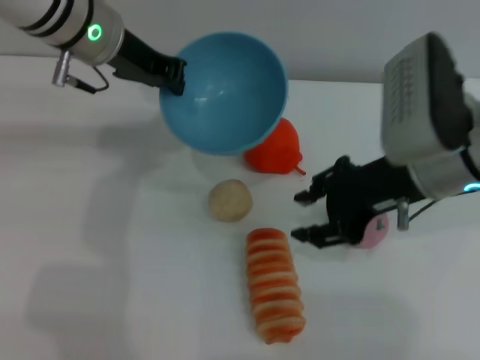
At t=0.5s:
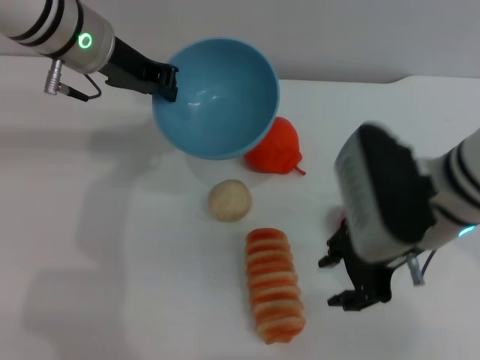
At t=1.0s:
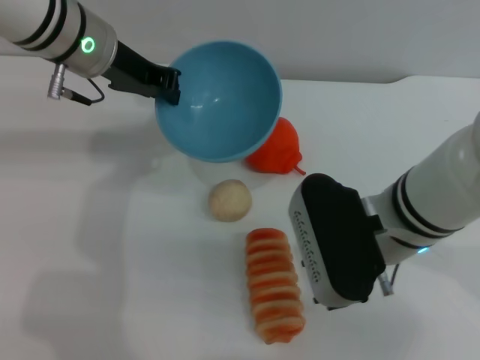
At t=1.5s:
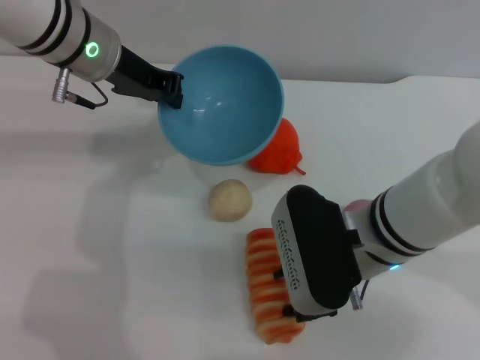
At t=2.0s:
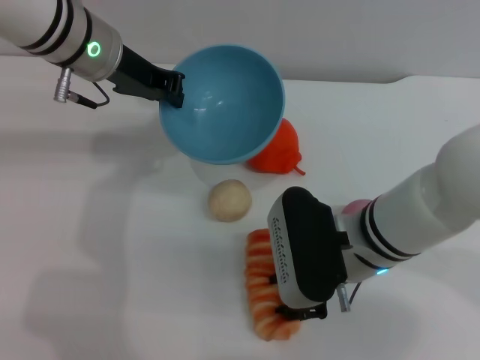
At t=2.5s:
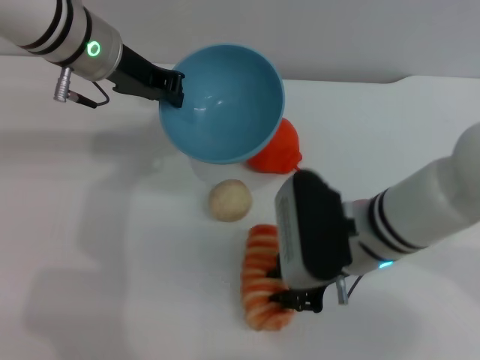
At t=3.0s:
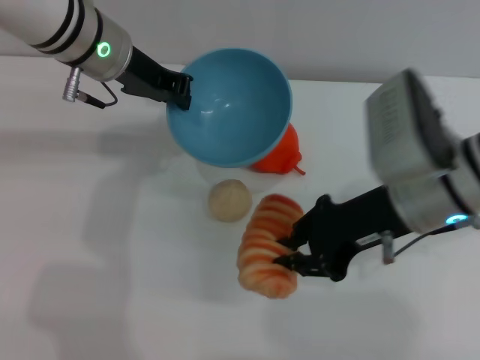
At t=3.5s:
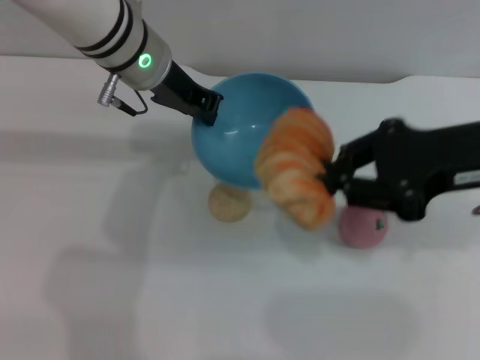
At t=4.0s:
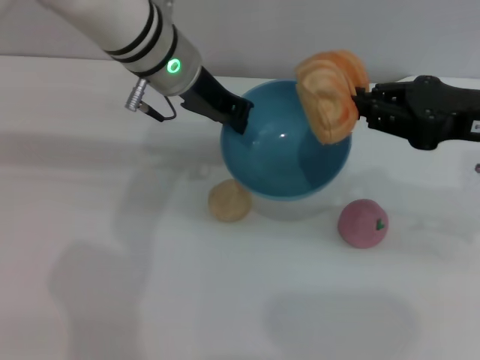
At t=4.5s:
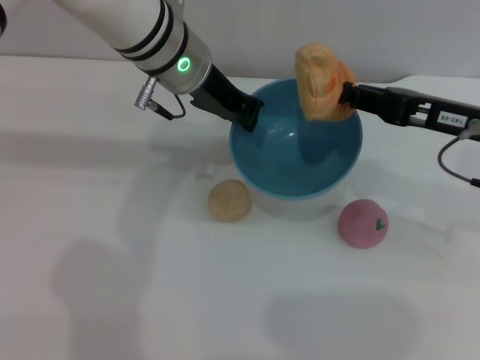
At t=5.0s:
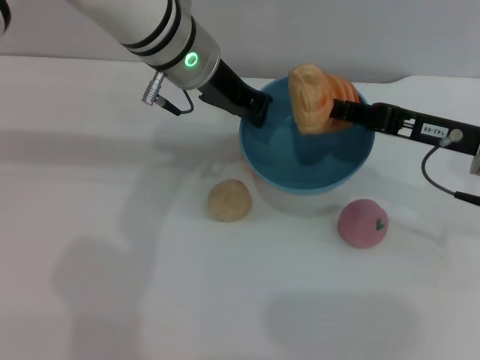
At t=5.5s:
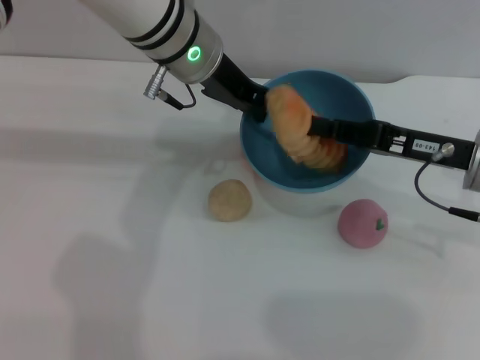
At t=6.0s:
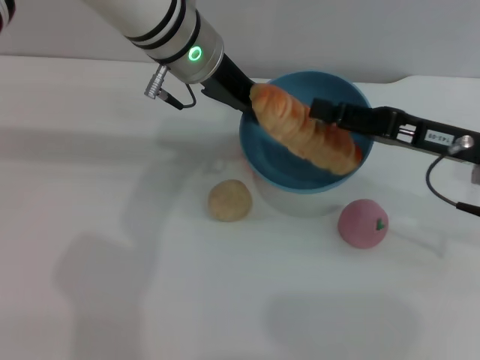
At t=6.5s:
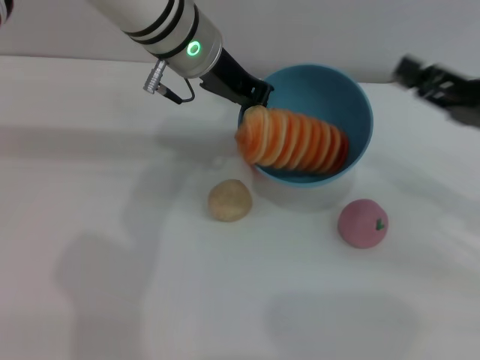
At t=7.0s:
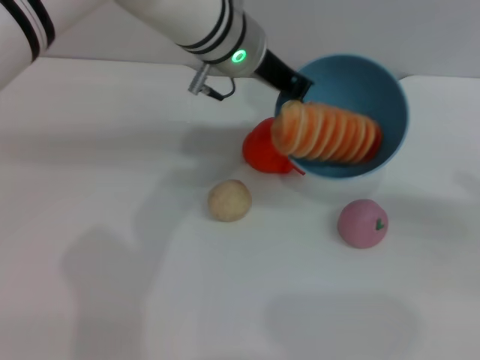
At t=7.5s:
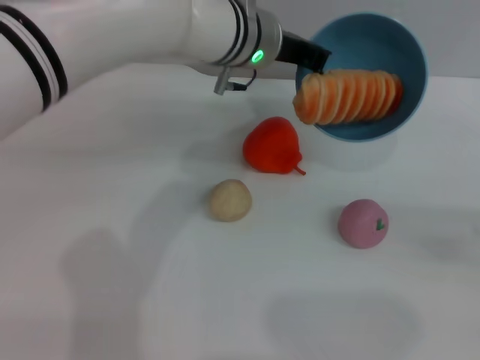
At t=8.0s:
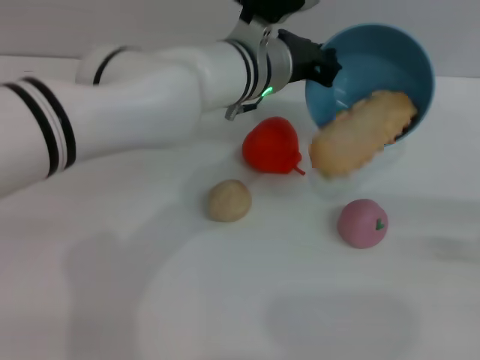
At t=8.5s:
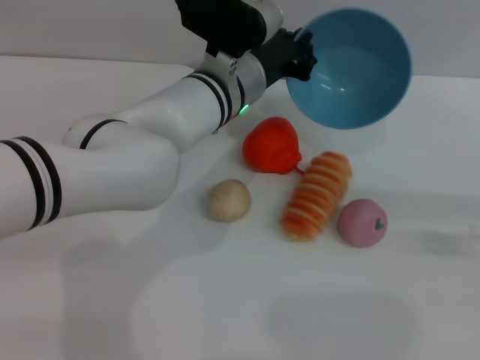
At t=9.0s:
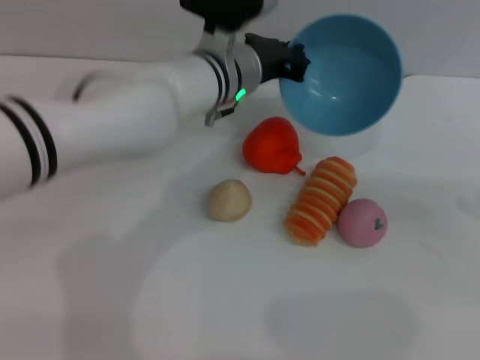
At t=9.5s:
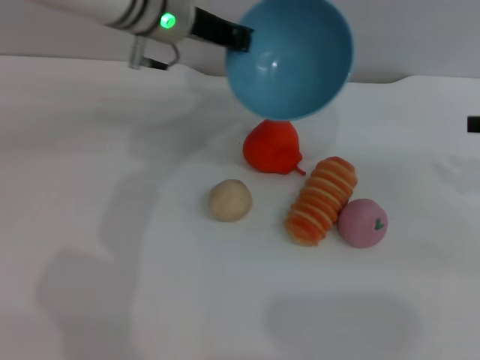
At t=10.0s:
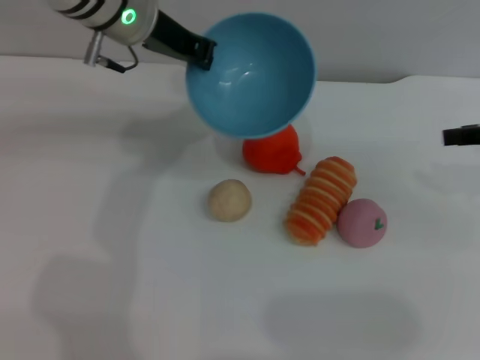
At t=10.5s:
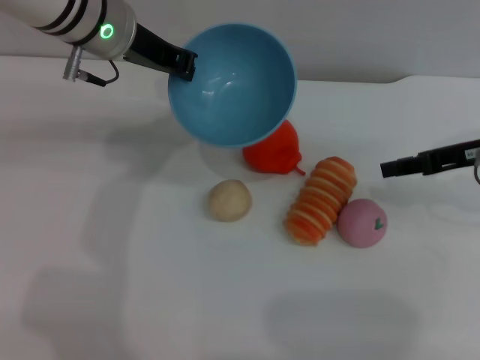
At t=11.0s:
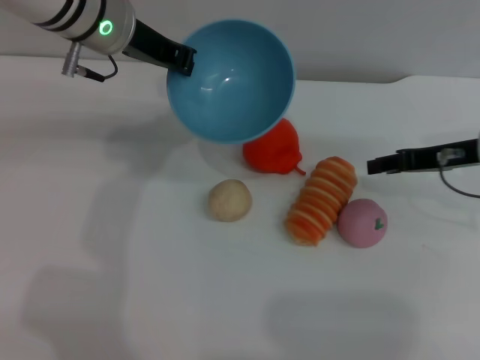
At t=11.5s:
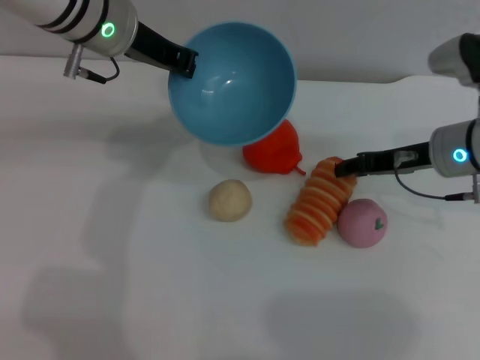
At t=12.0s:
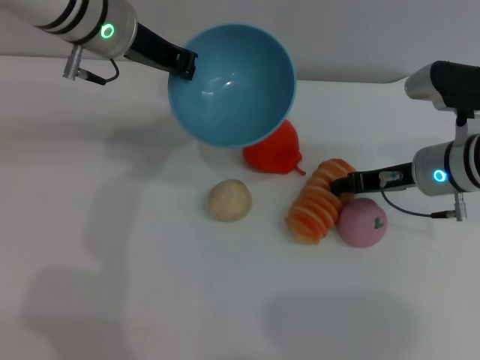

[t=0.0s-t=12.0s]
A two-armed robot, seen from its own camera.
Task of the whole recording: put the bread into the blue bowl and pour it out repeatedly.
Step, t=0.0s to t=3.0s: Pick up the bread with the right gripper.
Step, t=3.5s to t=6.5s: Place the bread into the bowl.
Step, t=7.0s to t=8.5s: Pour the bread out of the bowl.
t=0.0s to t=2.0s: The right gripper moves downward and to the left, some 10 cm.
t=2.0s to t=4.0s: The left gripper is displaced to the right by approximately 5 cm; the right gripper travels to the right and upward by about 20 cm, and closes its fingers.
t=4.0s to t=6.0s: The right gripper shifts about 5 cm downward, and opens up.
t=6.0s to t=8.0s: The left gripper travels downward and to the right by approximately 10 cm; the right gripper heads to the right, covering approximately 15 cm.
t=8.0s to t=10.0s: The left gripper heads to the left and upward, covering about 15 cm; the right gripper heads to the left, upward and forward, covering some 15 cm.
t=10.0s to t=12.0s: The right gripper goes some 15 cm downward and to the left.

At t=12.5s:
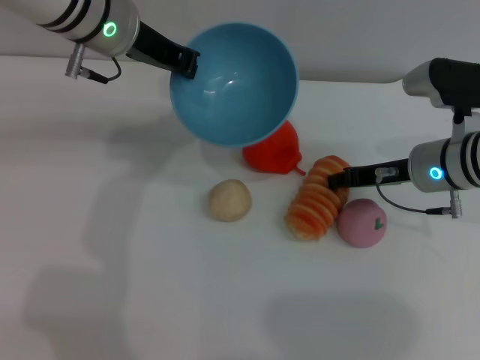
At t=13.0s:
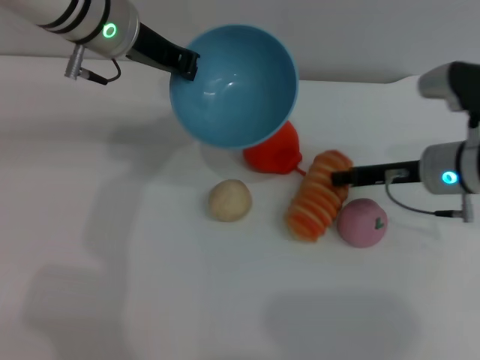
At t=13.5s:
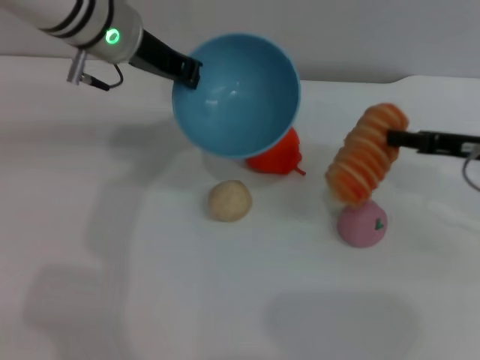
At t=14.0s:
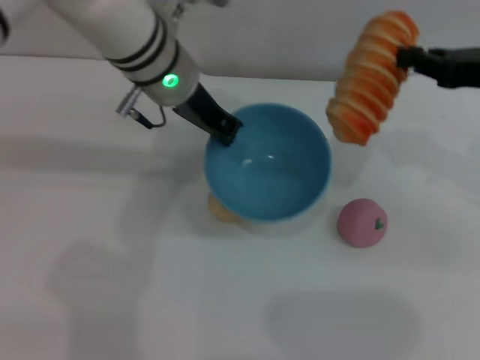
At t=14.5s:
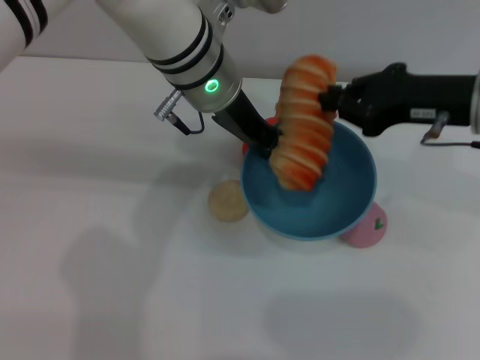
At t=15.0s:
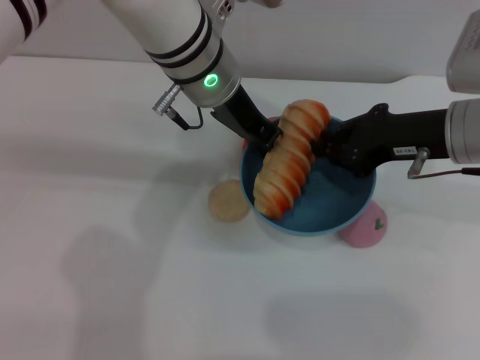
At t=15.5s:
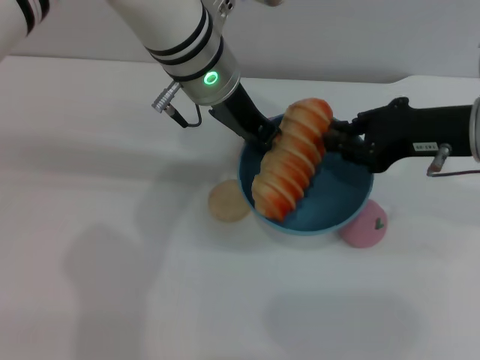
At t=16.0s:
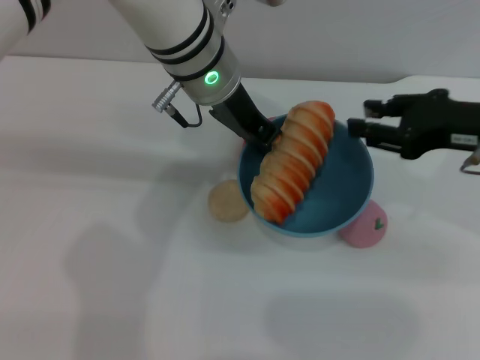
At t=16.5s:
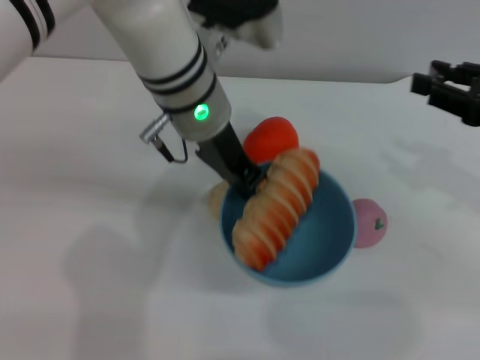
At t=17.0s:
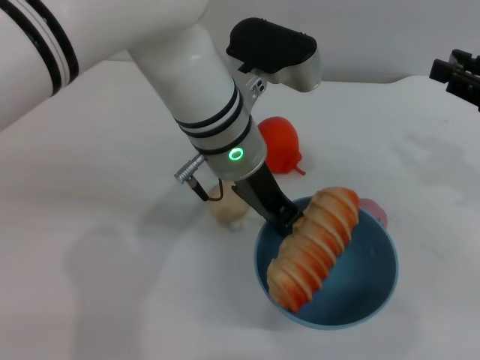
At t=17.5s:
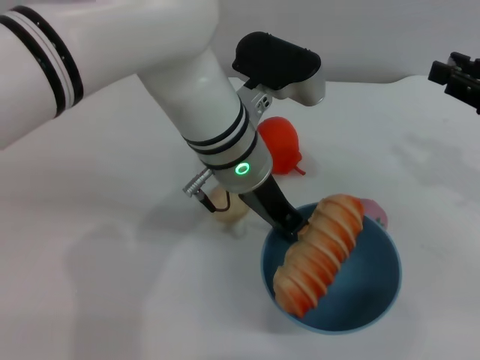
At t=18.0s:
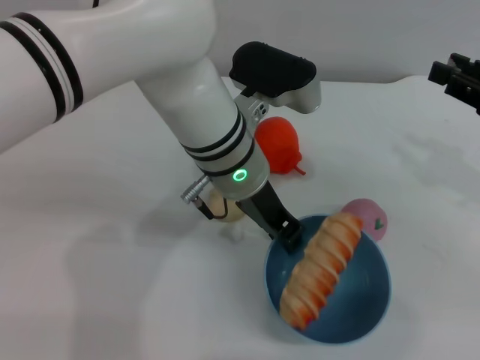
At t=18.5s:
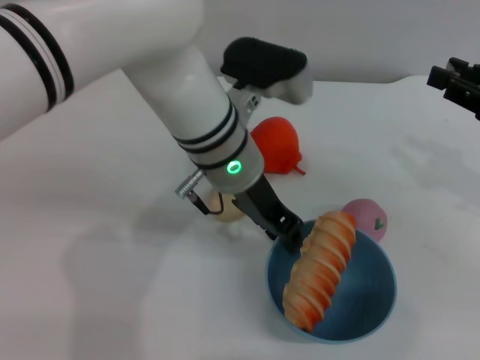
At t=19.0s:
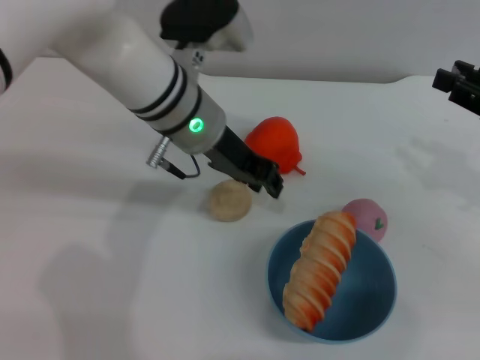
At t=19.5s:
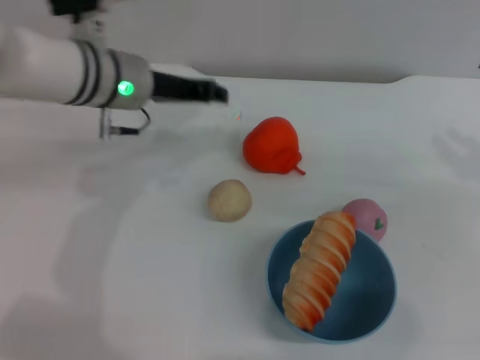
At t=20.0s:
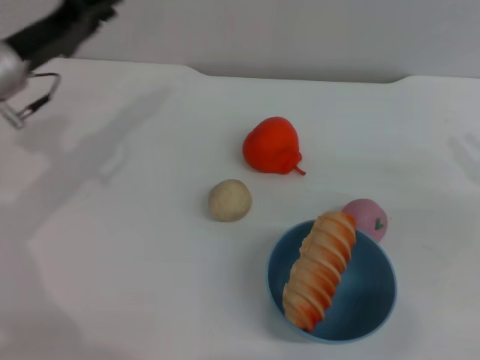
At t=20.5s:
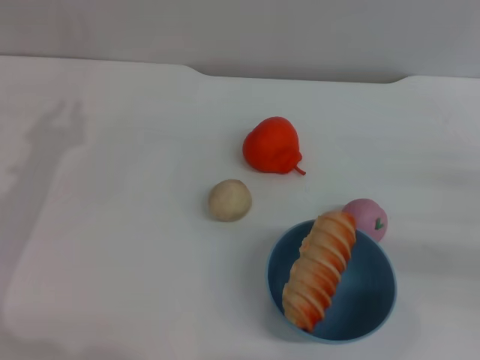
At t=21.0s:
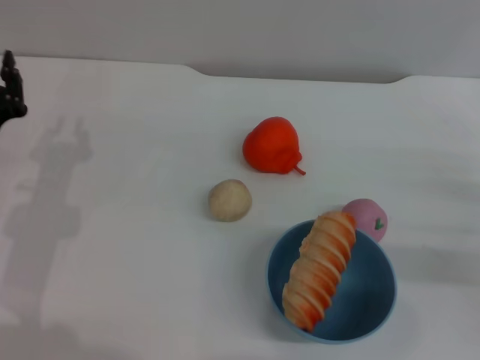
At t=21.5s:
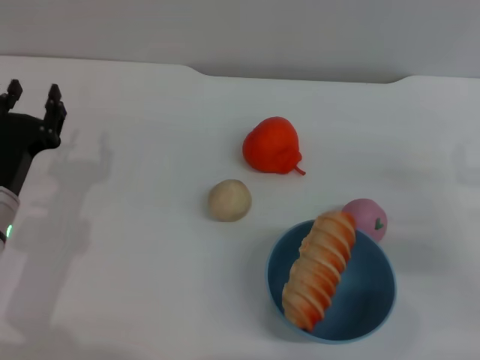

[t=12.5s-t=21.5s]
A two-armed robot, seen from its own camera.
Task of the whole recording: put the bread into the blue bowl and pour it out repeatedly.
Step, t=14.0s to t=16.0s: Place the bread into the bowl.
Step, t=16.5s to t=18.5s: Place the bowl on the table.
t=12.5s to t=14.5s: The left gripper travels to the right by about 10 cm. Meanwhile the right gripper shifts roughly 10 cm upward, and closes.
t=14.5s to t=17.0s: The left gripper shifts by about 5 cm; the right gripper heads to the right, covering approximately 10 cm, and opens.
t=17.0s to t=19.5s: The left gripper shifts about 10 cm to the left.
t=19.5s to t=21.5s: The left gripper shifts roughly 20 cm backward, downward and to the left; the right gripper goes some 10 cm downward.

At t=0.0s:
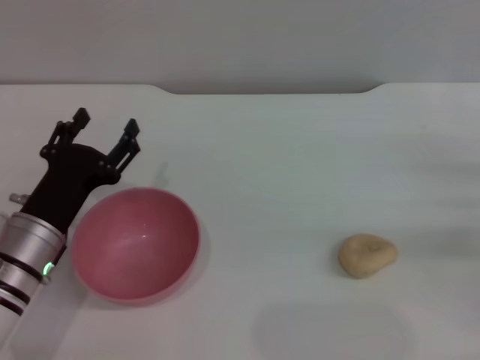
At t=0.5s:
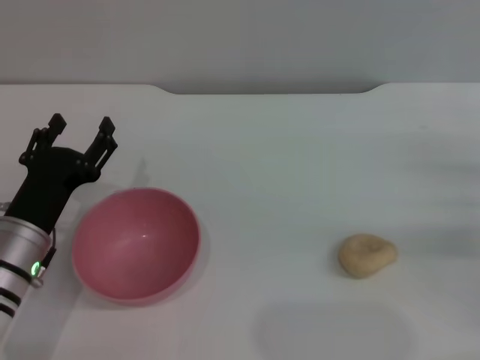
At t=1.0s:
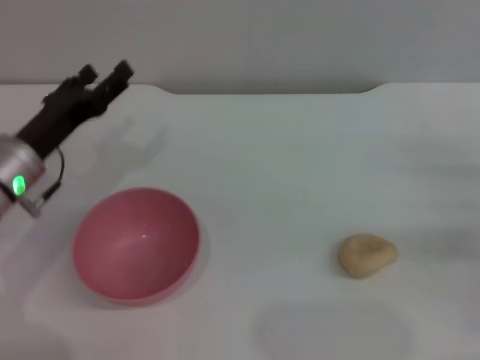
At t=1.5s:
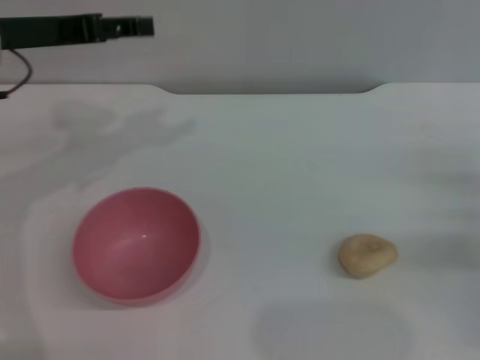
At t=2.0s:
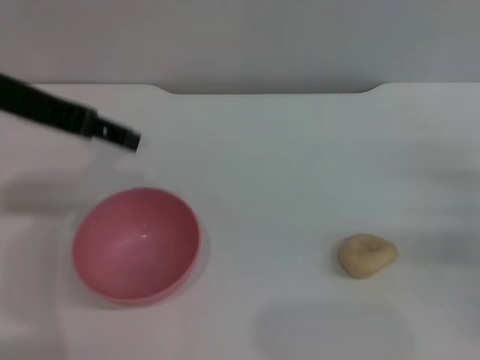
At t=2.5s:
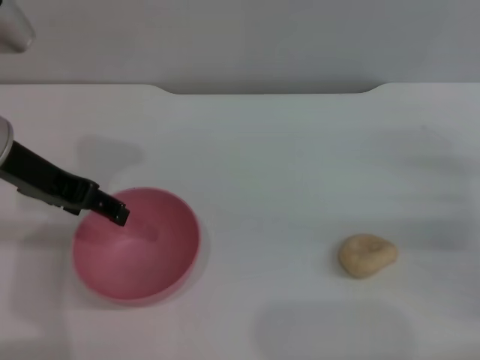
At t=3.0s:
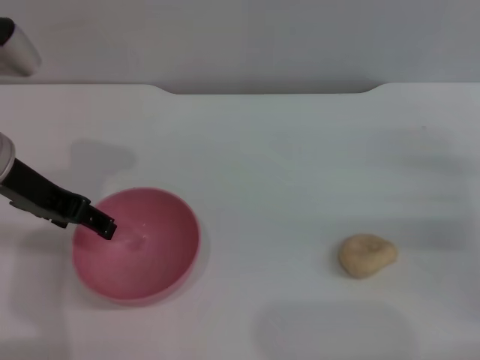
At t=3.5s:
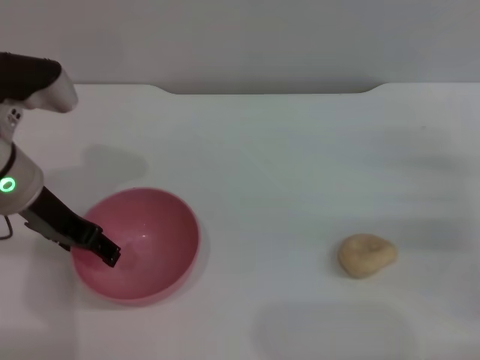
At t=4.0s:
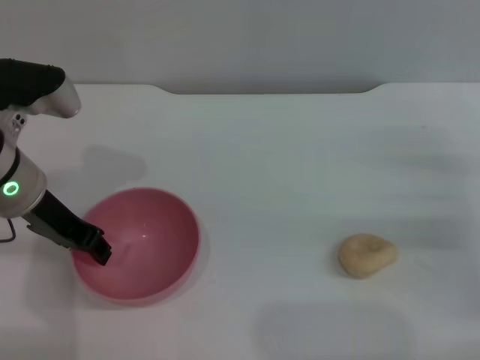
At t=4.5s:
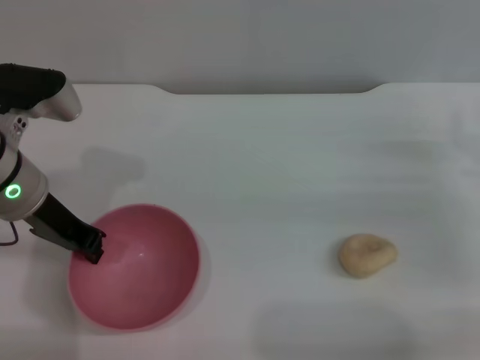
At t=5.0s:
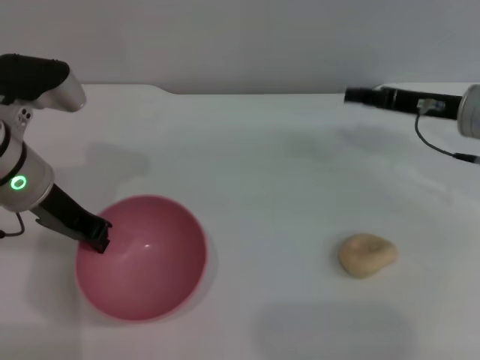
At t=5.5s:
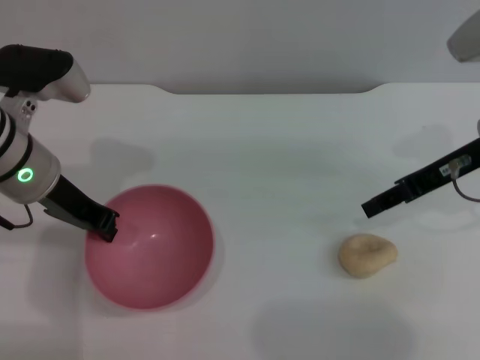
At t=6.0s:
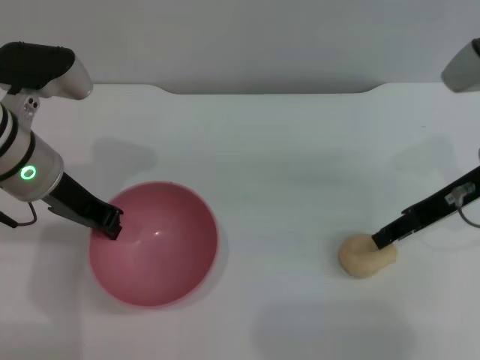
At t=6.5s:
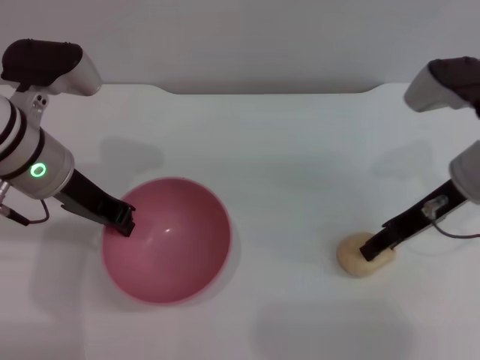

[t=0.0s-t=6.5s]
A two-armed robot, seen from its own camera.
Task of the whole recording: put the egg yolk pastry into the pink bowl and pour it out repeatedly.
Step, t=0.0s to t=5.5s: Pick up the bowl with the left gripper.
t=0.0s to t=2.0s: The left gripper heads upward, covering approximately 25 cm.
t=2.0s to t=4.5s: The right gripper moves roughly 5 cm, while the left gripper heads downward, covering some 10 cm, and closes up.
t=4.5s to t=6.5s: The right gripper heads to the left and upward, covering roughly 10 cm.
